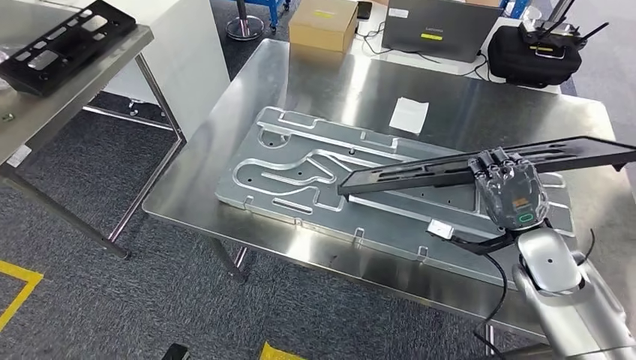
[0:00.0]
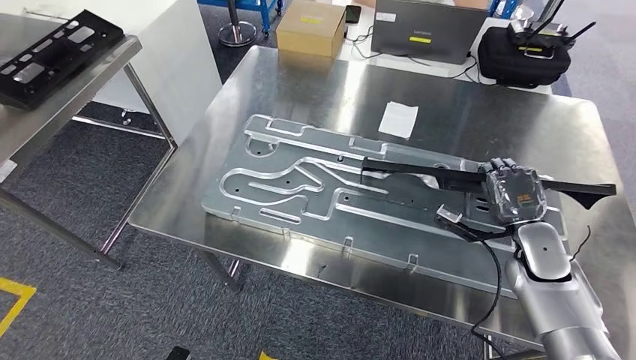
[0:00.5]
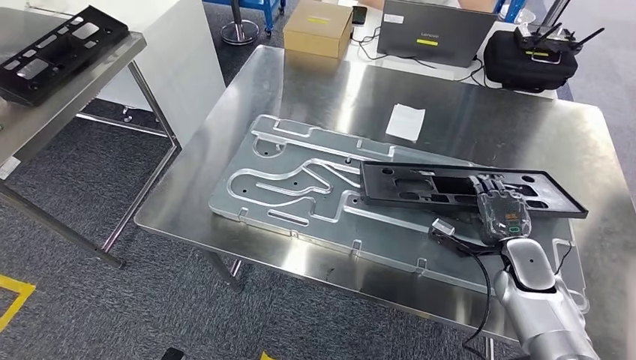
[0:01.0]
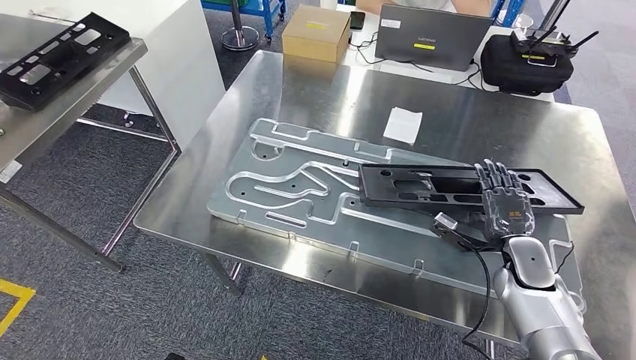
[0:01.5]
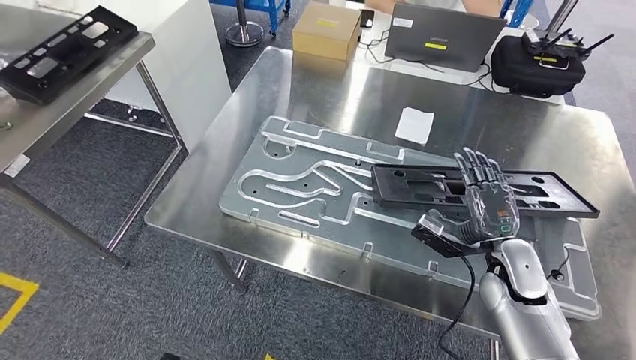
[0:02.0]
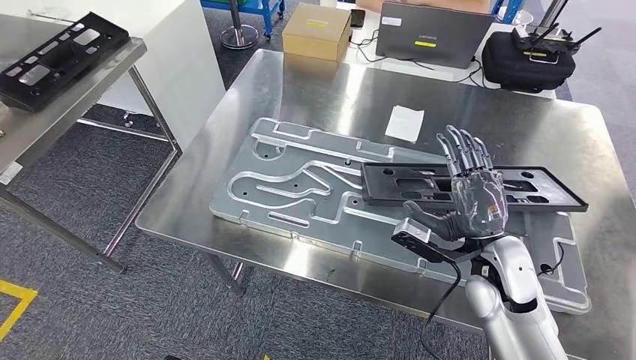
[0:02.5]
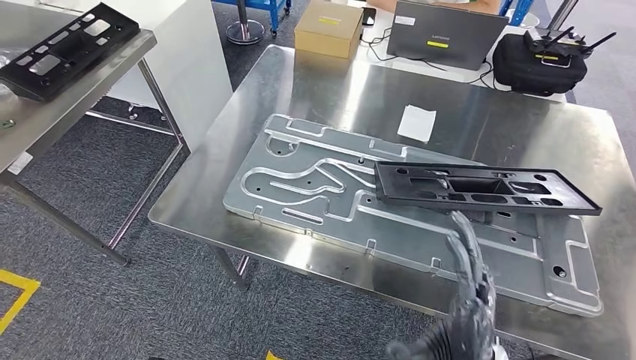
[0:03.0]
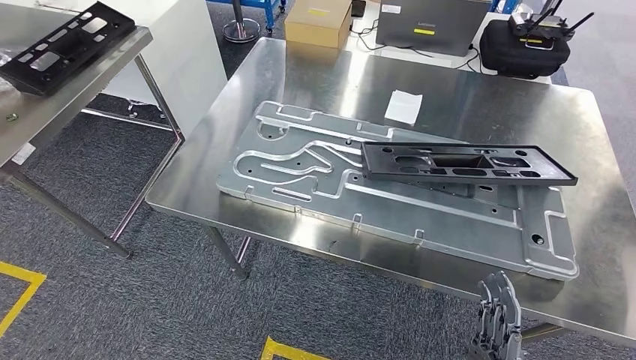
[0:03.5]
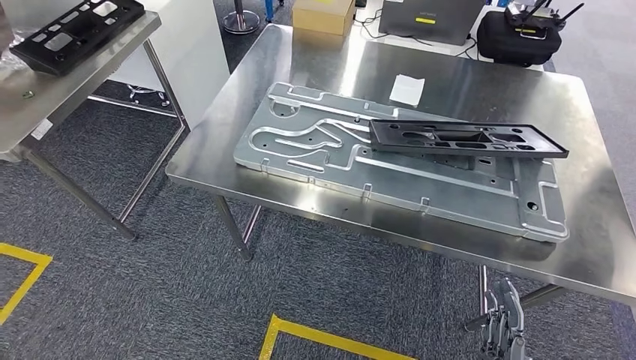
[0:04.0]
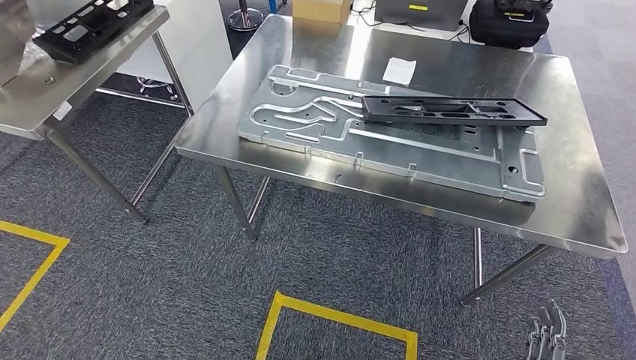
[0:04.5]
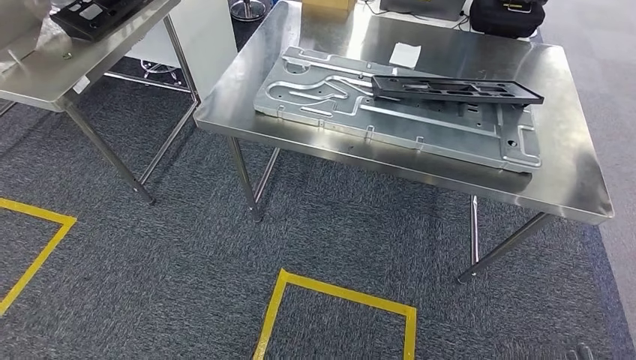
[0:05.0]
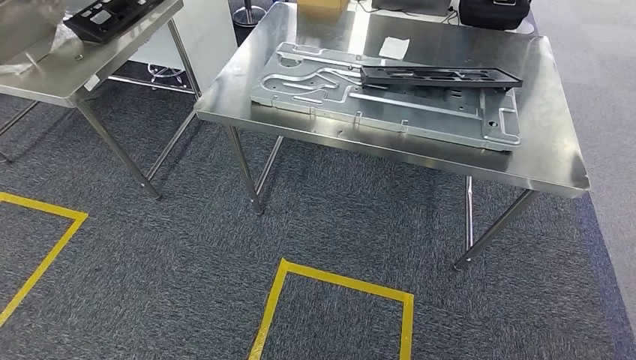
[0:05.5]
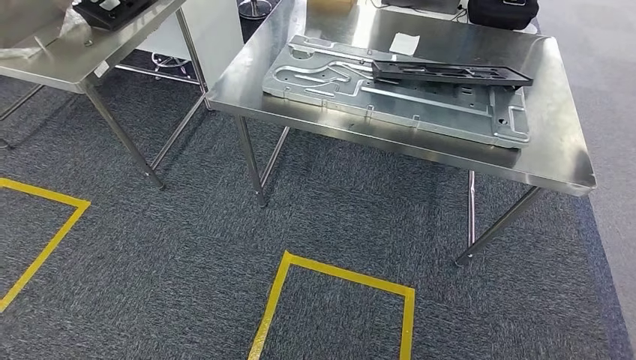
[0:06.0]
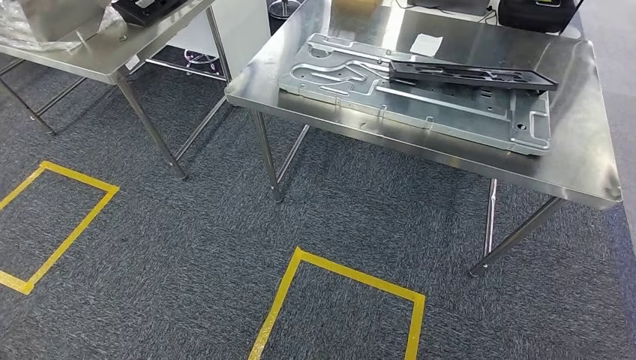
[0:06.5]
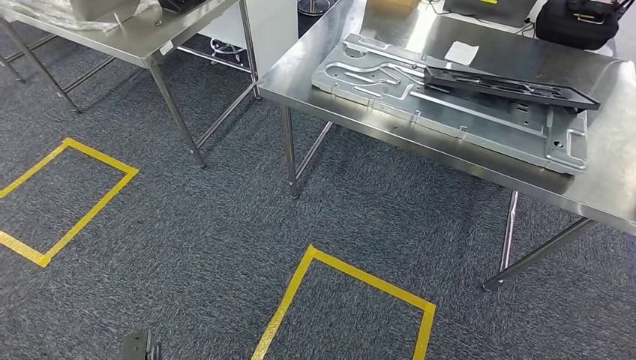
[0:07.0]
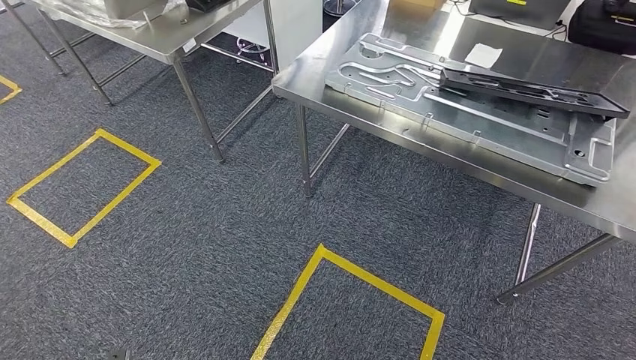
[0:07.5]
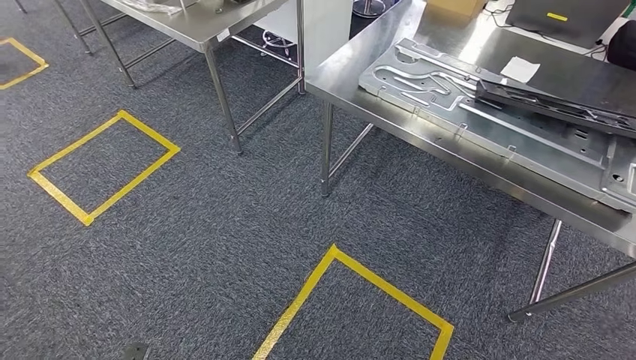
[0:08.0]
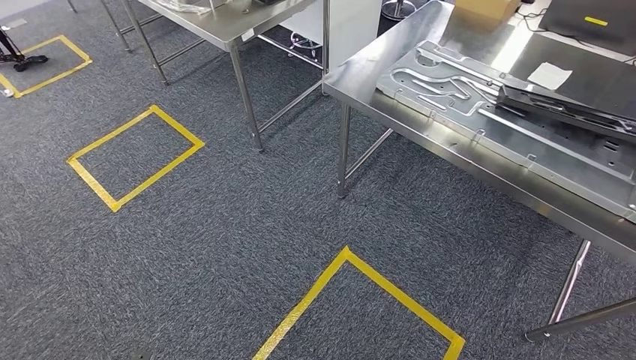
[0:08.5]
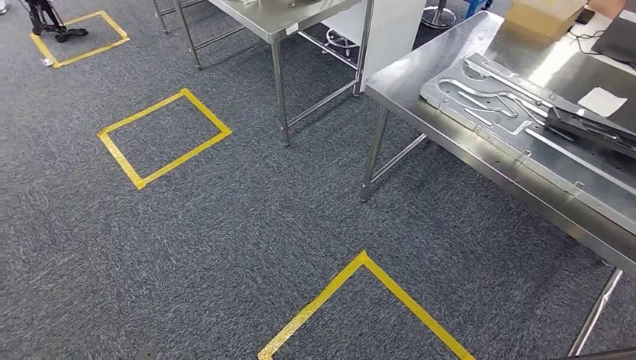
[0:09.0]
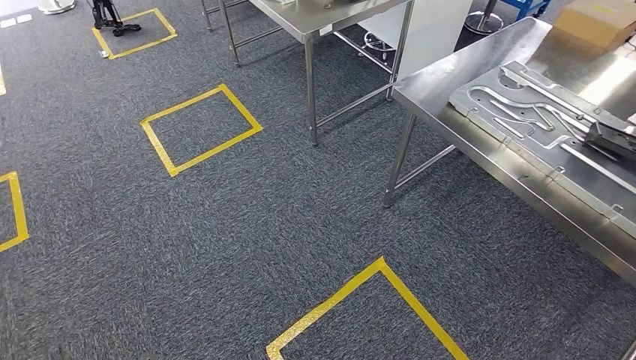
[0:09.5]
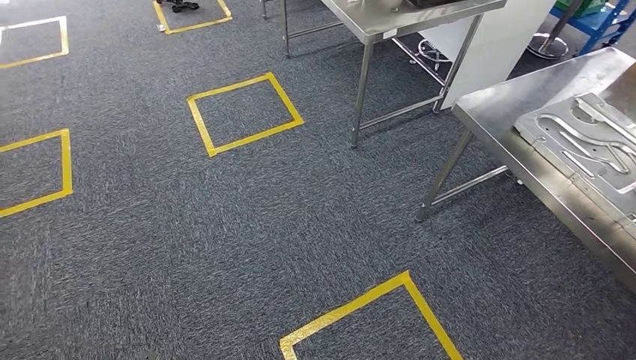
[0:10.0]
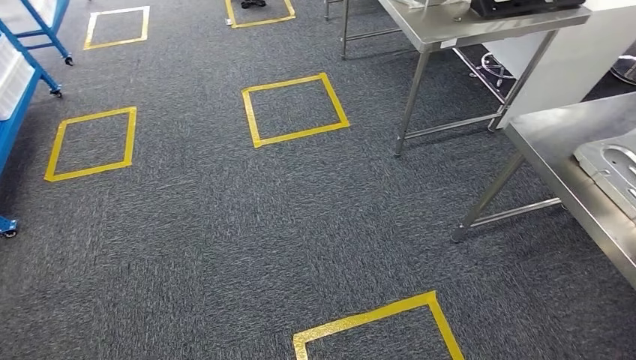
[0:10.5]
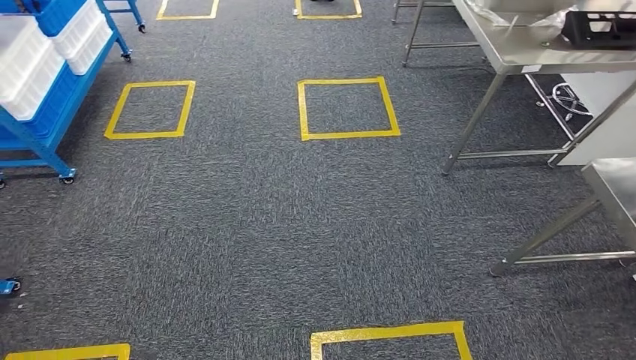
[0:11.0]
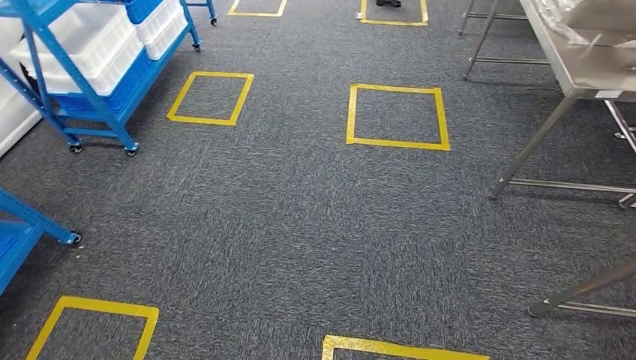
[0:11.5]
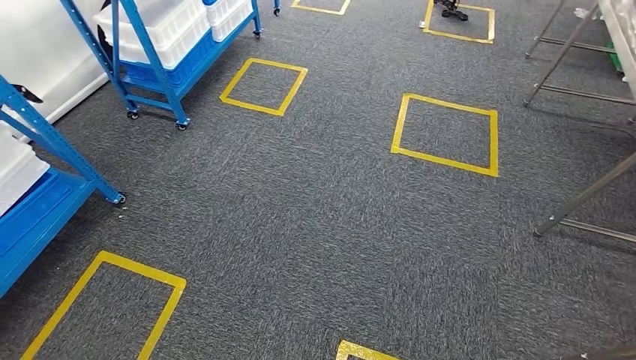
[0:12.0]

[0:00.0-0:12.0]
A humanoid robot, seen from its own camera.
Step, 0:00.0 to 0:05.5: Insert the large material into the corresponding slot on the workbench.

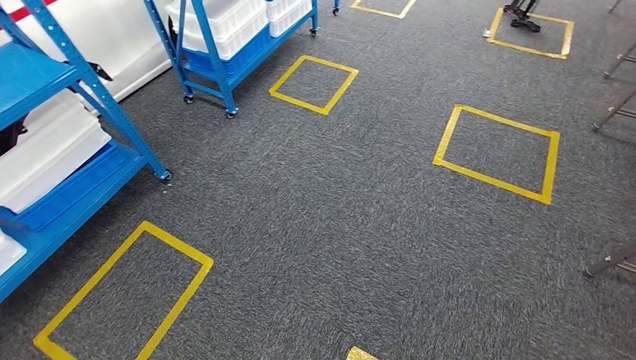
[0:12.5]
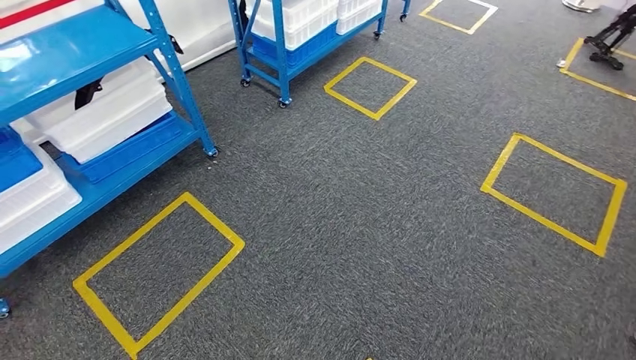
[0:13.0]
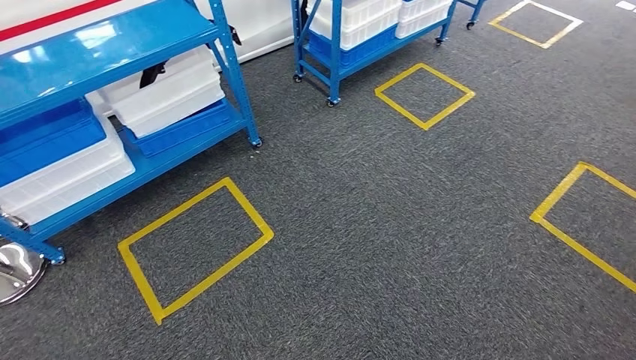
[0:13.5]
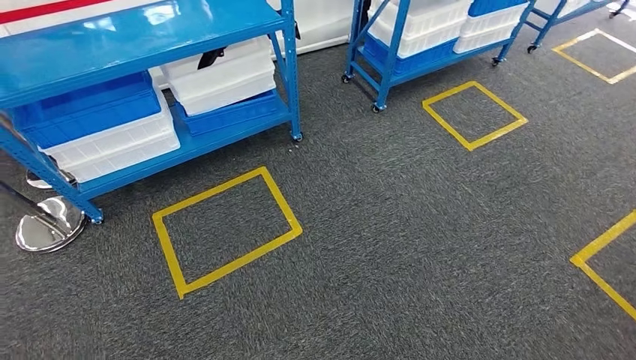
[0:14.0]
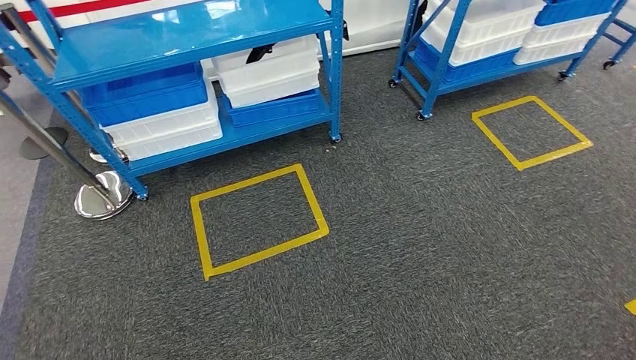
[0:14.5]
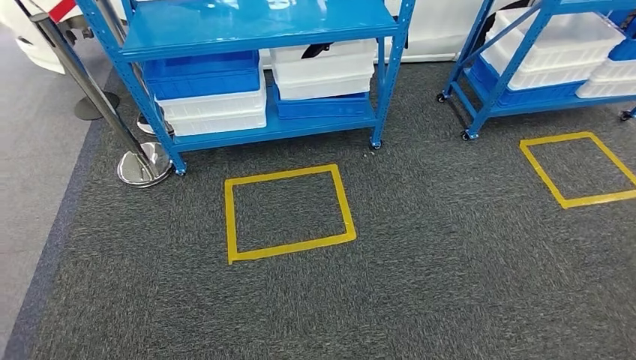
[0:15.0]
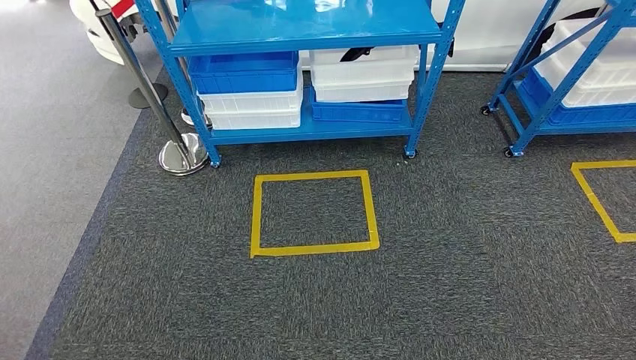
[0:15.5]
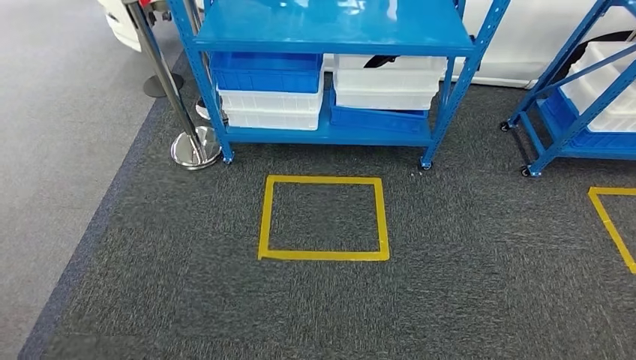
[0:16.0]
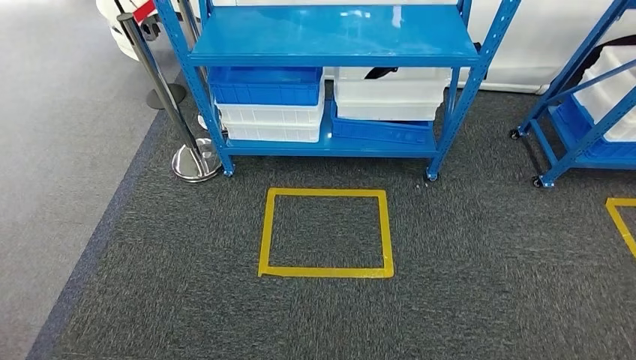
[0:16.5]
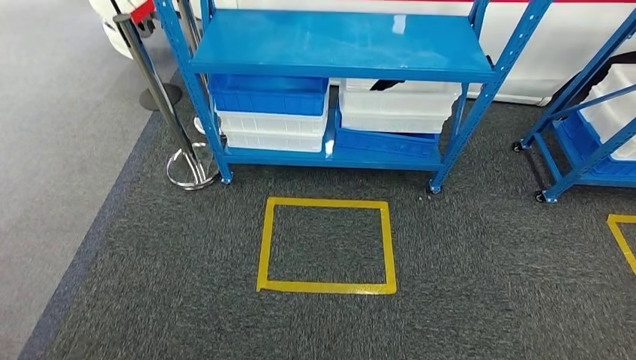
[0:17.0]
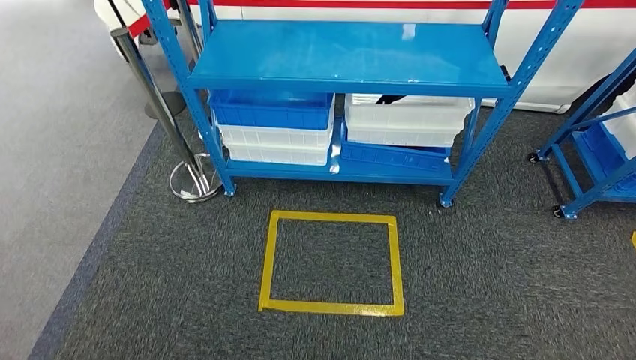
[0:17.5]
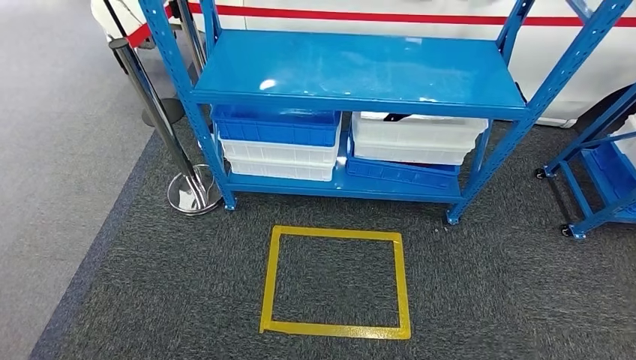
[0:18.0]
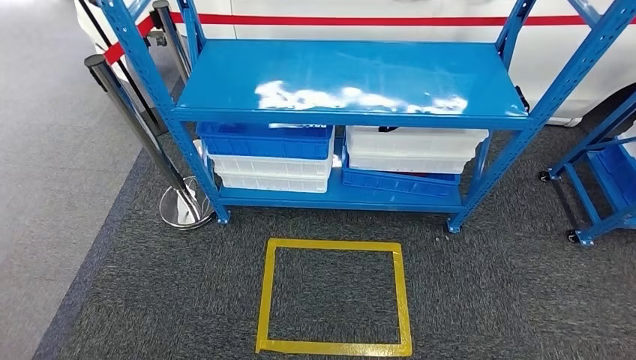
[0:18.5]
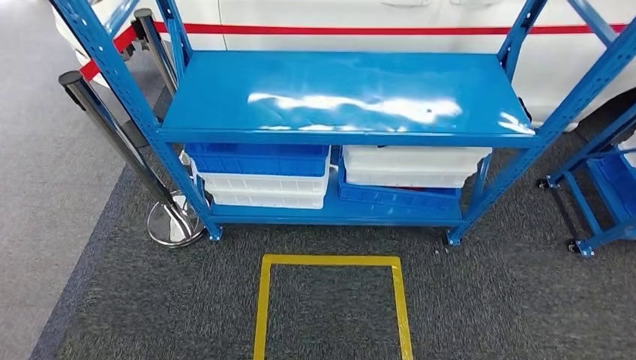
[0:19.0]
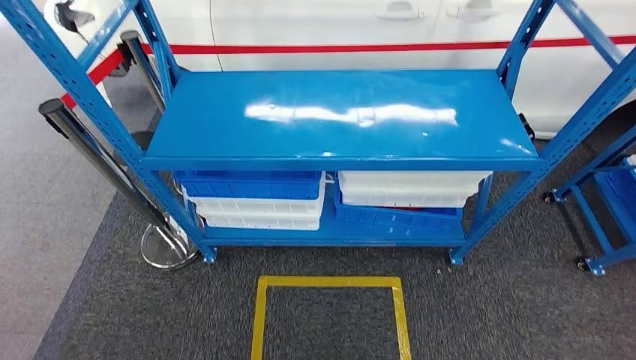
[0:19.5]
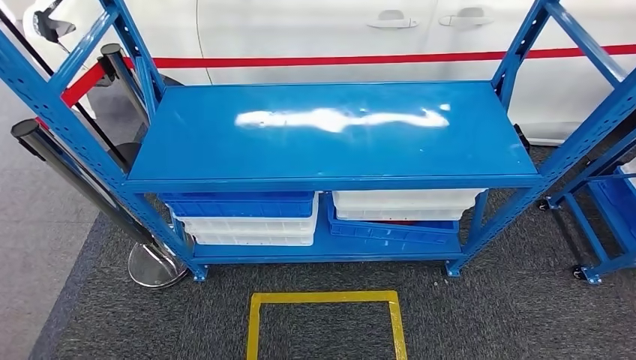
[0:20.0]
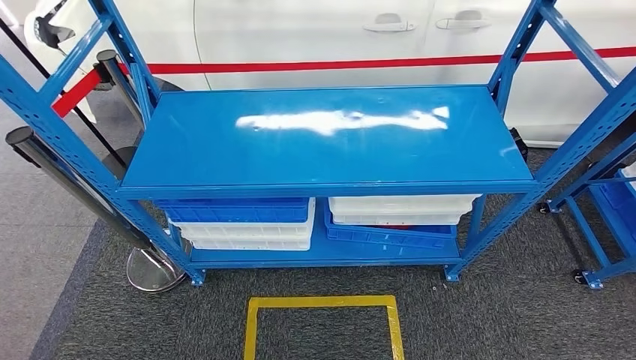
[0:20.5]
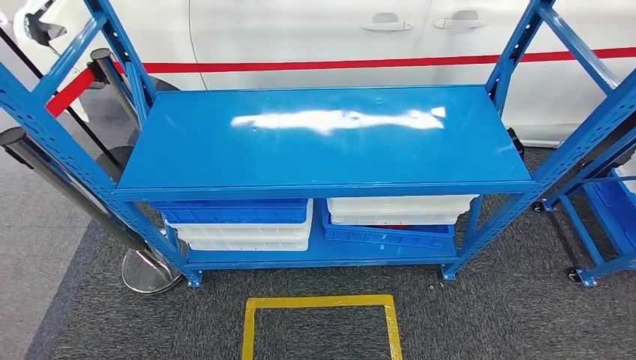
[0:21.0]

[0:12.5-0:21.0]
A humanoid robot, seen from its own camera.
Step, 0:12.5 to 0:21.0: Move to the initial position of the shelf.
